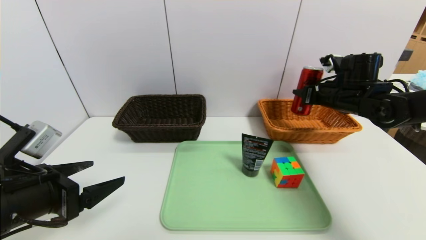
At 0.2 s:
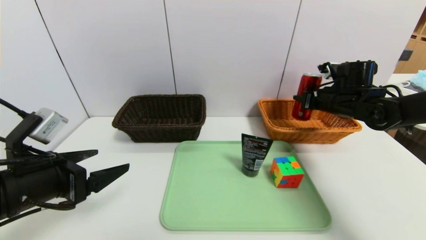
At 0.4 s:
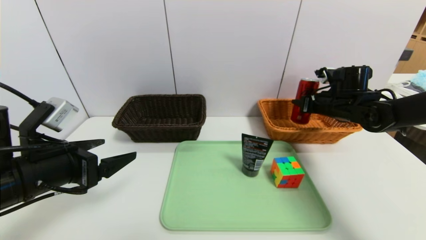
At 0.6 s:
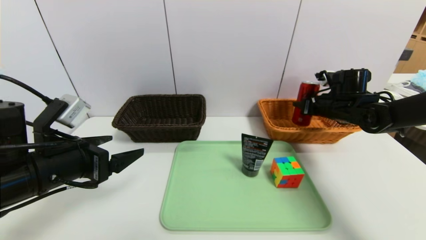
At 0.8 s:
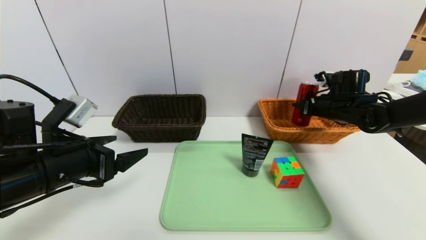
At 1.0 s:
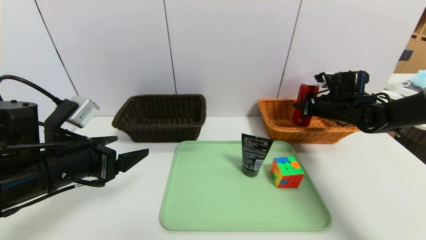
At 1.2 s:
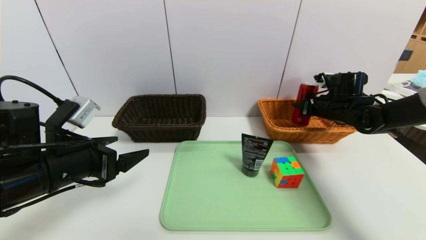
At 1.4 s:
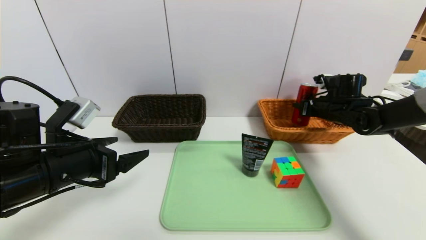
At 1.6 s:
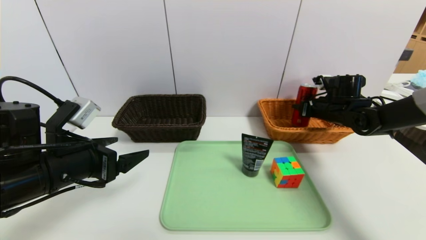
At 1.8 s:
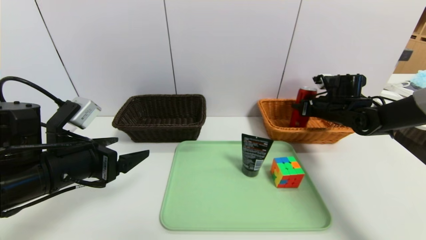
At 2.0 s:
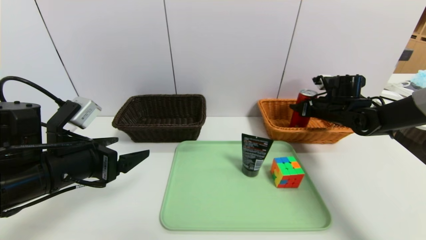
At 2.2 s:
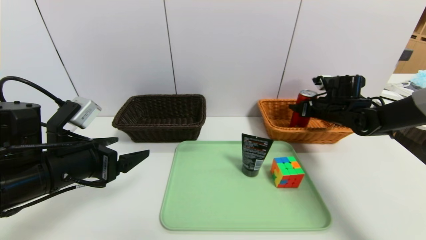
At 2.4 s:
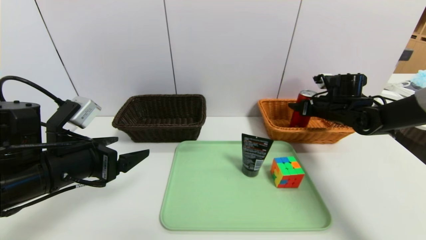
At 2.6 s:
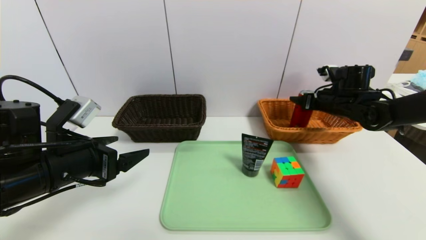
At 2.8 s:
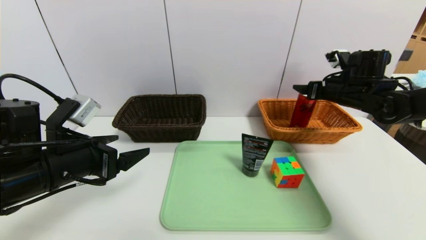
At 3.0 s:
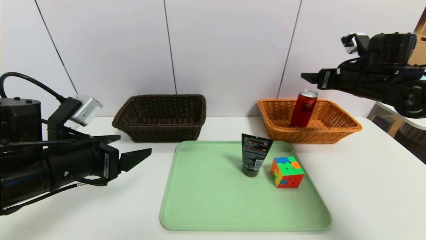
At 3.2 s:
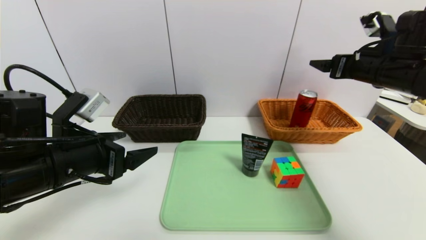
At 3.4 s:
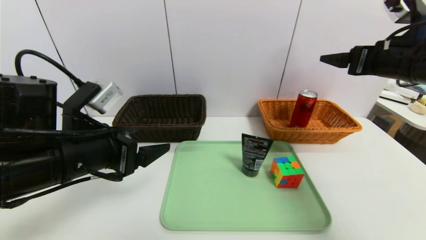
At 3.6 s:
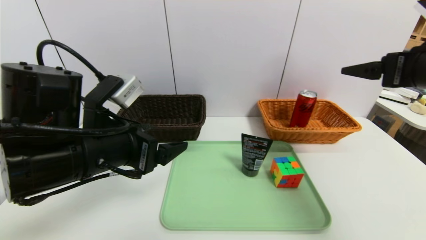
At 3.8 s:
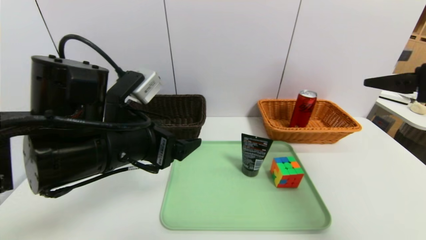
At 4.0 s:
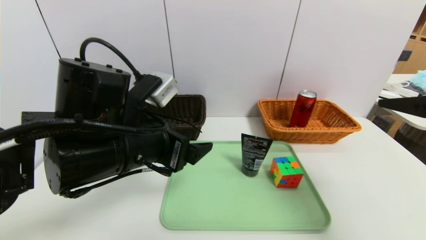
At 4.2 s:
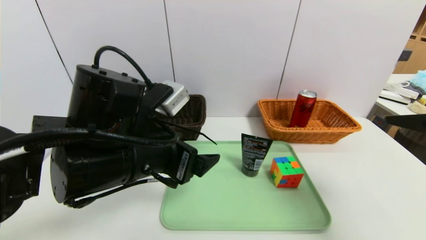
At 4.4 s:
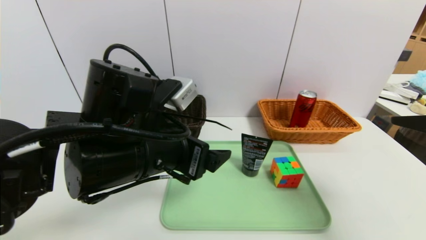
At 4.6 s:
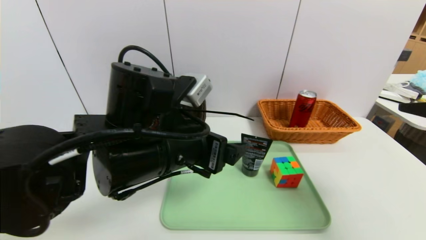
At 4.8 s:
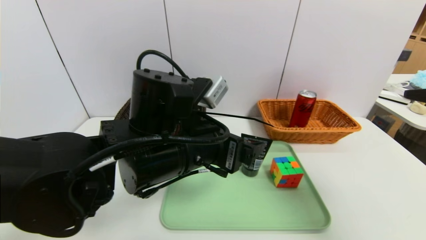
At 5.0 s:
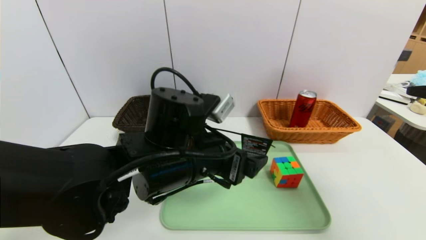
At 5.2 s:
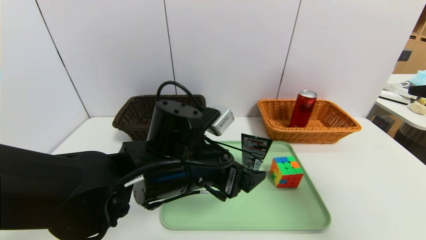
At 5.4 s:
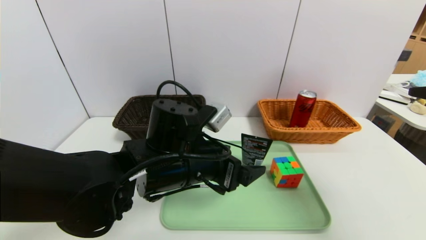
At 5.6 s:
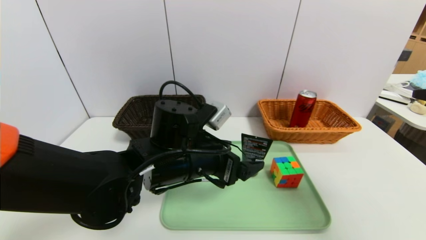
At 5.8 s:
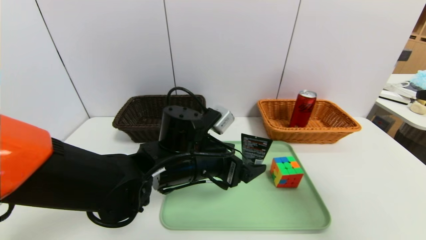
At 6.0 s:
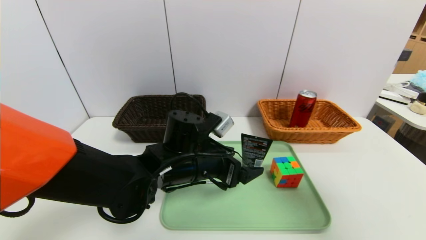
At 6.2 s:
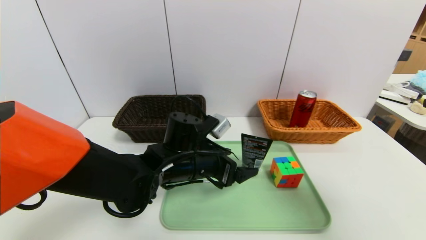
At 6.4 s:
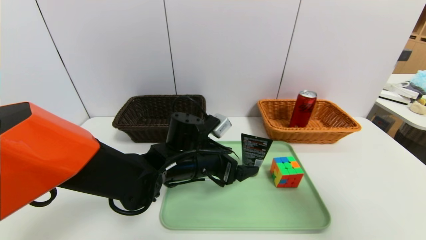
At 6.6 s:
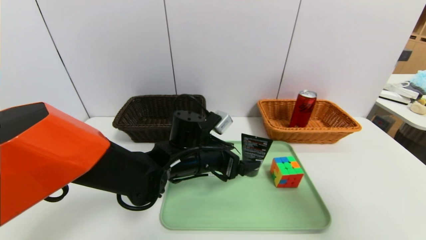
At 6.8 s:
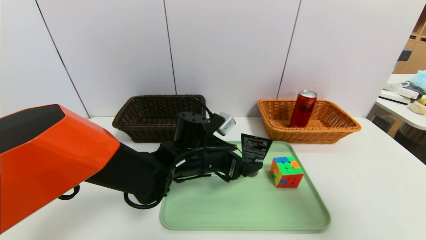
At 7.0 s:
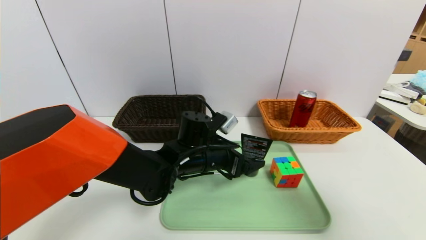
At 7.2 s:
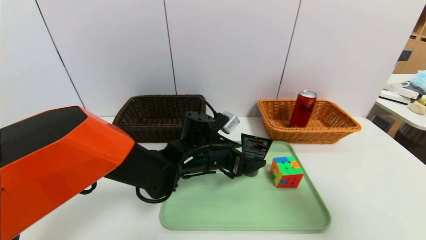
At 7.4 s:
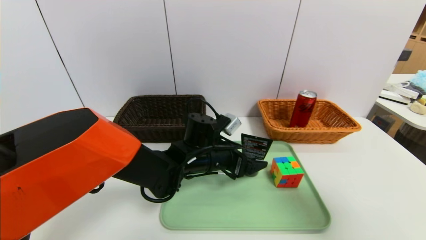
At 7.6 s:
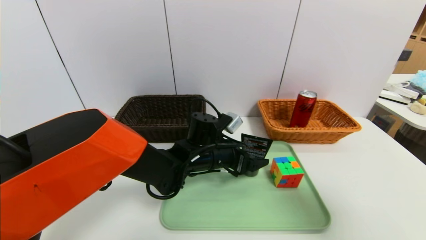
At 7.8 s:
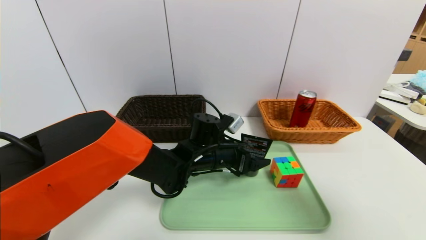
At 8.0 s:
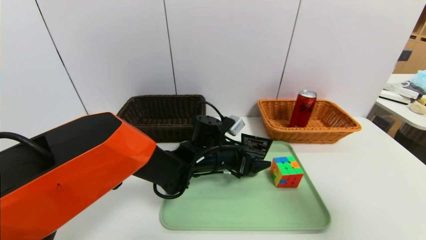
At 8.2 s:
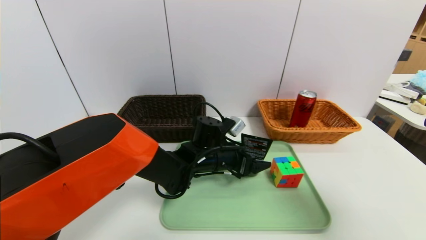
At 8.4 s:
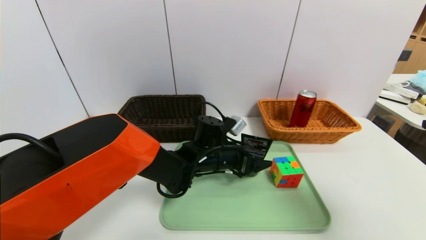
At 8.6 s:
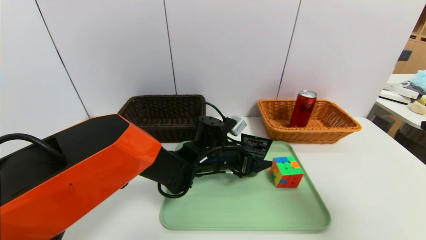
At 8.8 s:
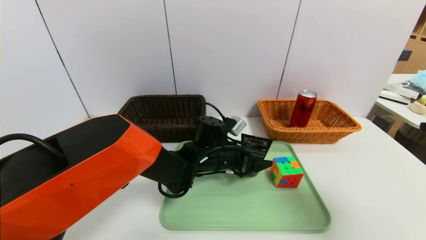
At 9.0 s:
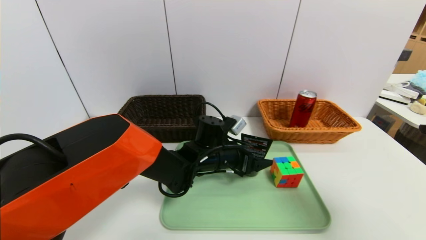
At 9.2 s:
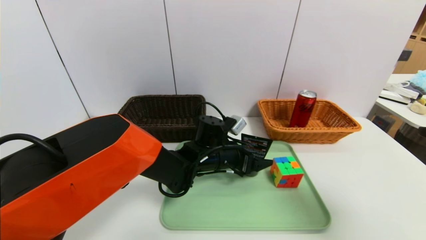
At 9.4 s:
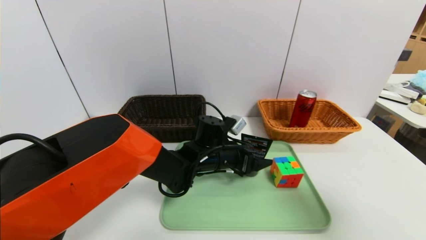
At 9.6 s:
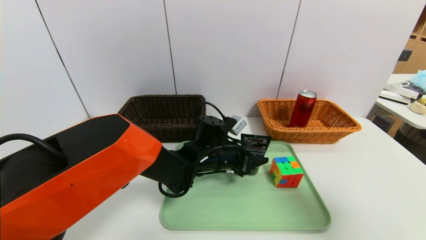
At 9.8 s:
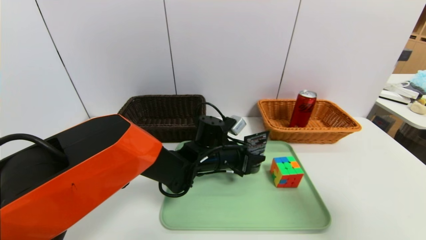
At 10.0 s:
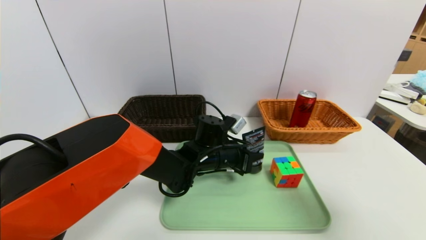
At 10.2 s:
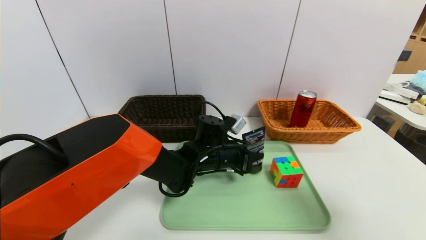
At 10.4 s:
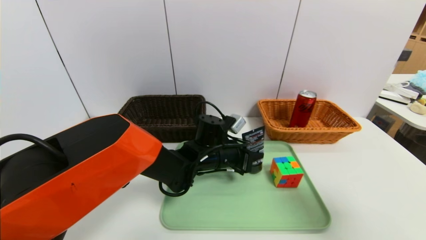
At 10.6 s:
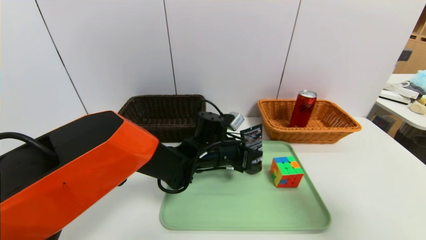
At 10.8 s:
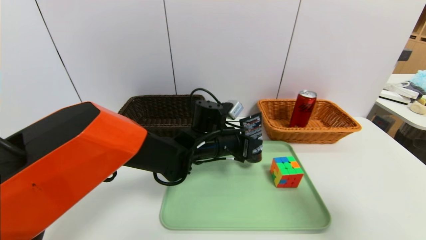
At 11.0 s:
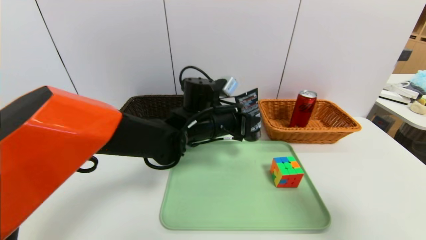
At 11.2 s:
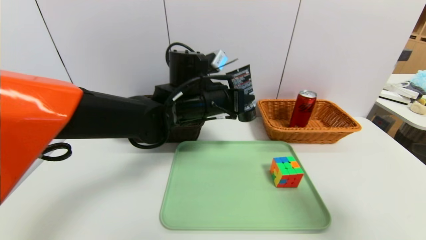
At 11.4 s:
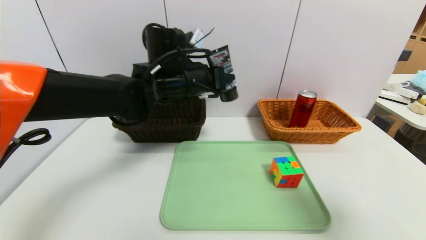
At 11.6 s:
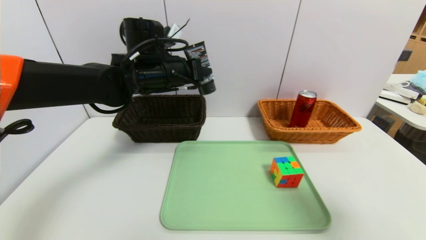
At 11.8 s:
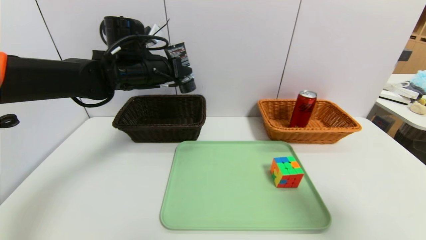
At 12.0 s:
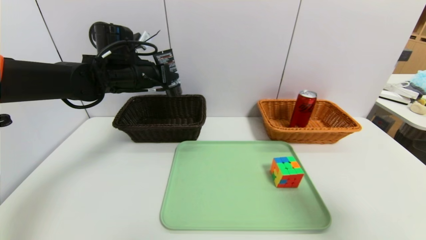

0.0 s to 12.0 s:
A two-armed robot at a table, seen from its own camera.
Task of the whole recording: place the food in the right basket with the right gripper, and place the non food items in the left basket with the left gripper.
Step, 0.0 to 3.0 s: Grasp the coke and put it in the right basket.
0.0 to 1.6 s: The right gripper heads downward, covering approximately 5 cm. The left gripper changes place by about 5 cm.
1.6 to 3.0 s: The right gripper is displaced upward and backward by some 10 cm, and opens its fingers.
3.0 to 4.4 s: The right gripper is displaced backward by some 25 cm, while the left gripper travels to the right by about 15 cm.
4.4 to 6.0 s: The left gripper moves downward and forward, some 10 cm.
6.0 to 7.6 s: The left gripper heads forward, covering about 5 cm.
7.6 to 9.0 s: The grippers stay close to where they were, moving slightly.
9.0 to 10.4 s: The left gripper closes its fingers.
10.4 to 12.0 s: The left gripper shifts approximately 25 cm to the left and upward.

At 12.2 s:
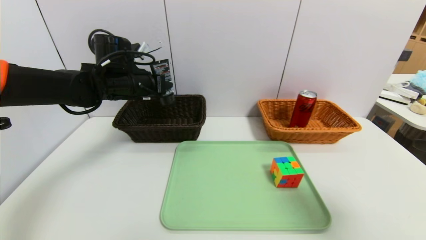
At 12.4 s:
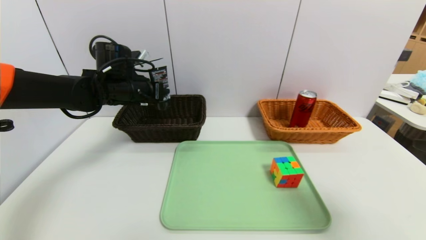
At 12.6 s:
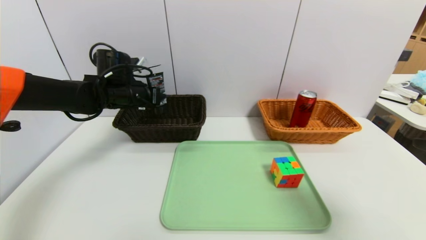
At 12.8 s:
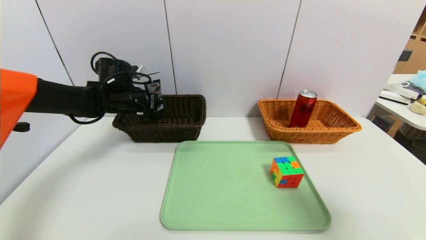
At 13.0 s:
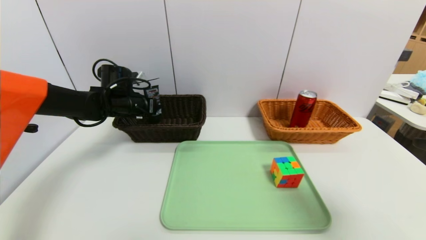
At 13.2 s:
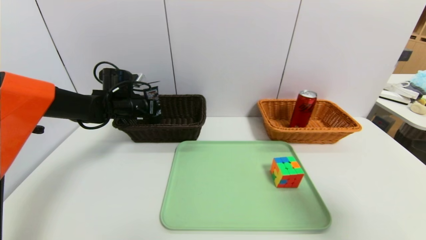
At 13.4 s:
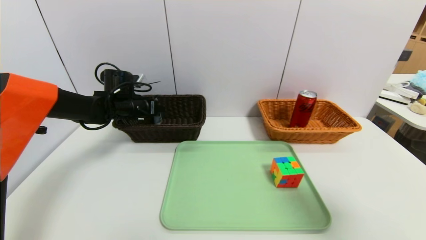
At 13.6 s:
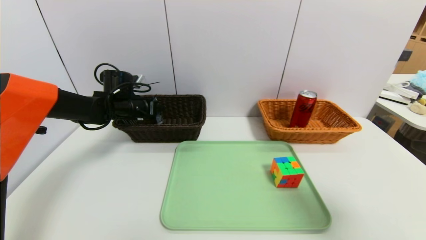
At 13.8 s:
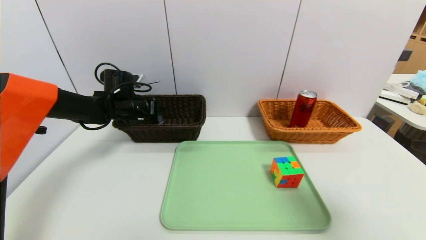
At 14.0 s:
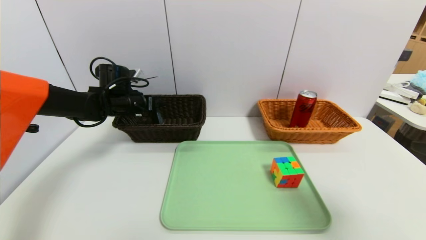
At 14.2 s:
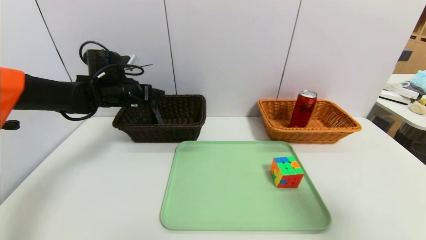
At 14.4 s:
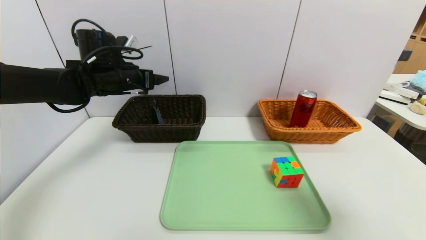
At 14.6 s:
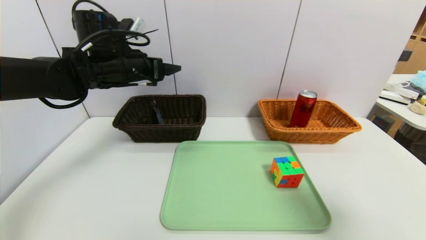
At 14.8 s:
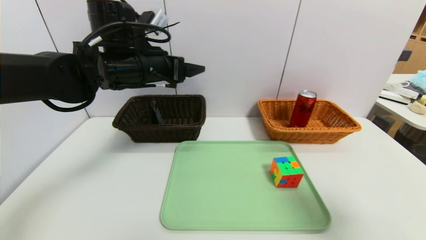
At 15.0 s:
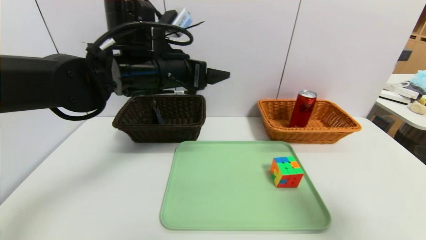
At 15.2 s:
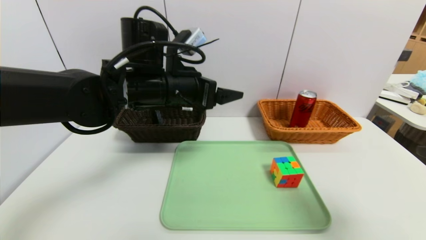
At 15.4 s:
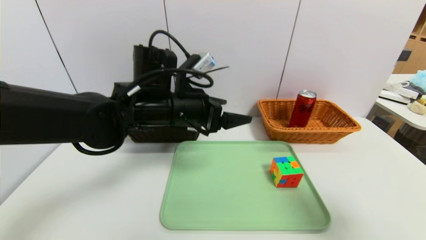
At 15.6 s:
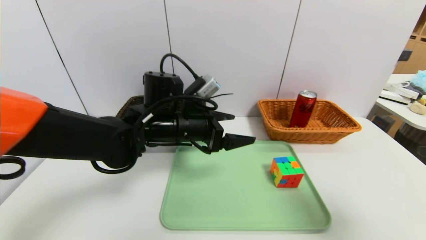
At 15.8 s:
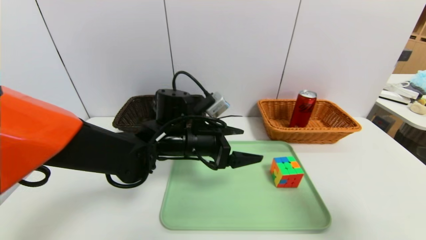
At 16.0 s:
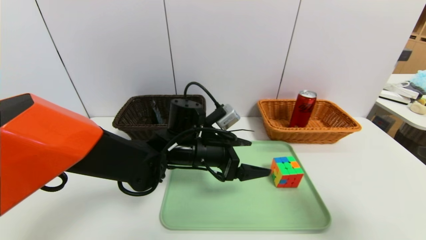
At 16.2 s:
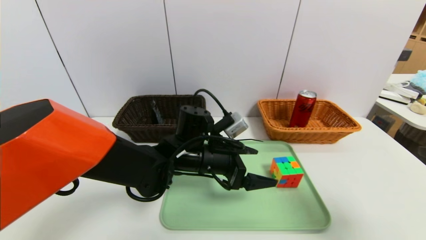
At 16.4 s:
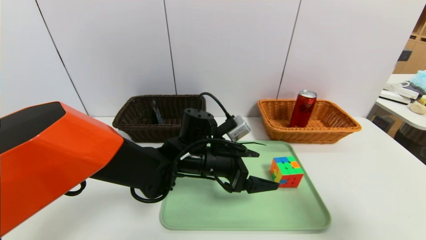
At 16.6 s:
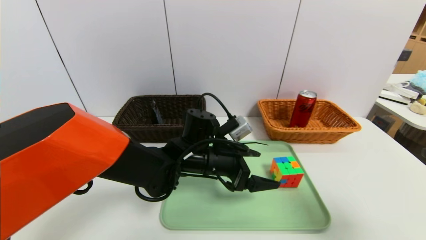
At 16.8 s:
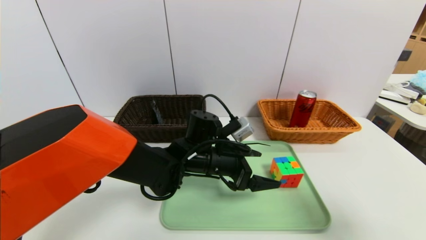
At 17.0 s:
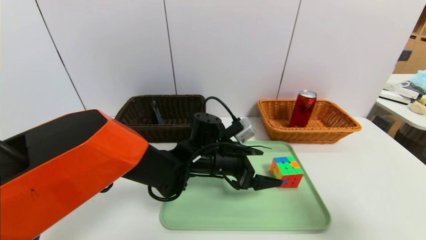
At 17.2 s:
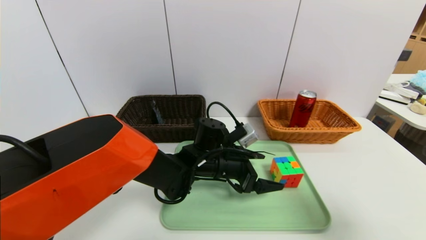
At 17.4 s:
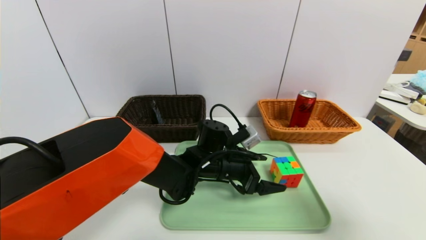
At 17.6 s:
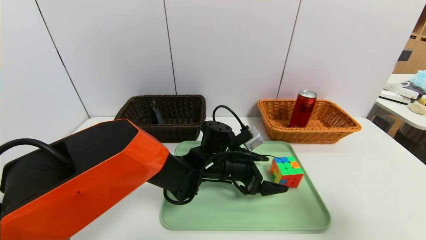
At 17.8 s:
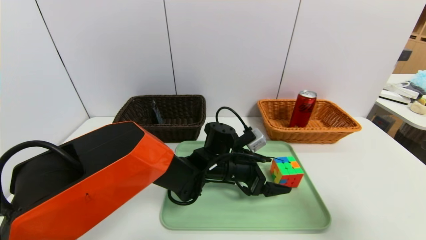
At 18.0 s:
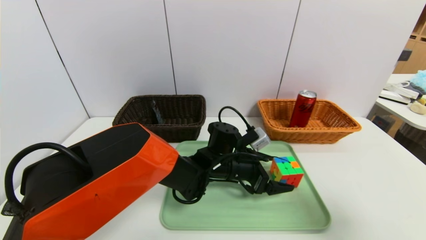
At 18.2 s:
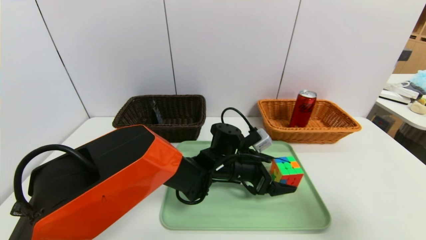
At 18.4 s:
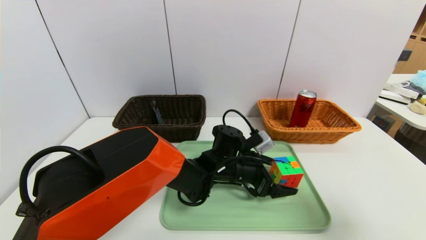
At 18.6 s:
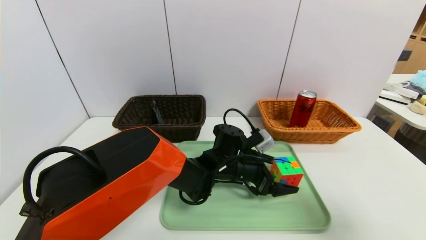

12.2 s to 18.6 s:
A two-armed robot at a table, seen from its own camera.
Task of the whole recording: place the food in the right basket with the right gripper, and place the non food items in the left basket with the left gripper.
12.2 to 13.8 s: The left gripper shifts some 10 cm downward, and opens up.
13.8 to 15.4 s: The left gripper shifts about 25 cm to the right, backward and upward.
15.4 to 17.0 s: The left gripper travels downward and to the right by some 15 cm.
17.0 to 18.6 s: The left gripper shifts by approximately 5 cm.
